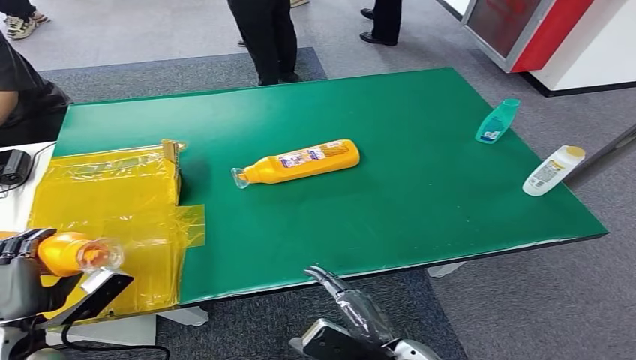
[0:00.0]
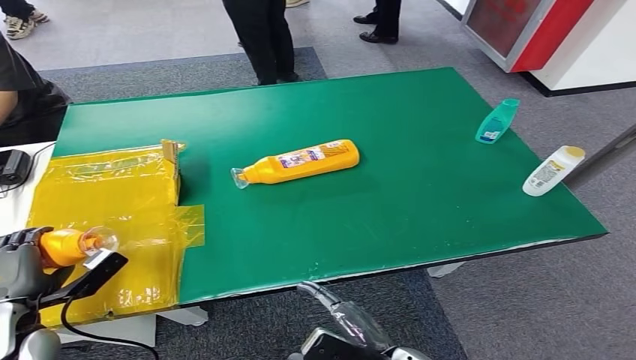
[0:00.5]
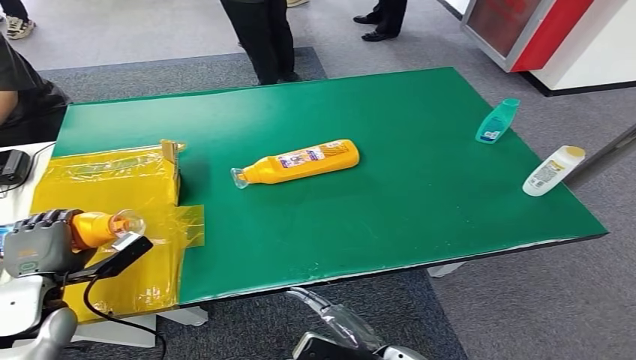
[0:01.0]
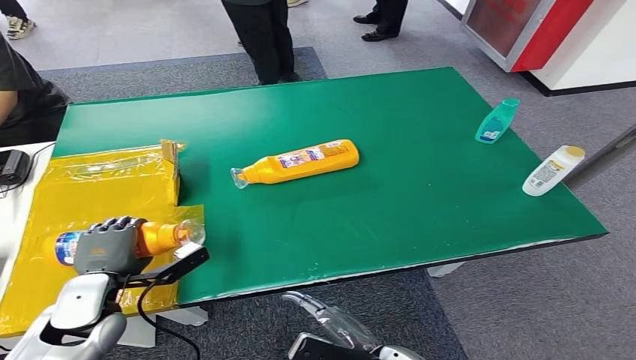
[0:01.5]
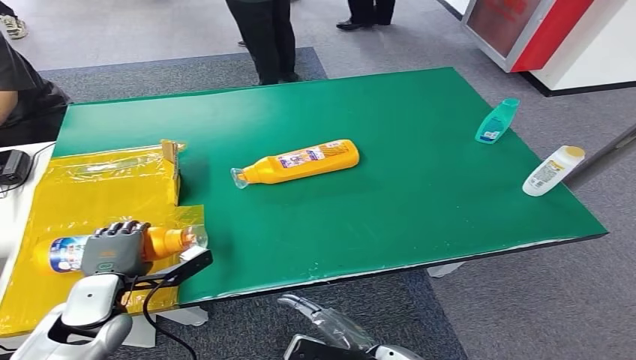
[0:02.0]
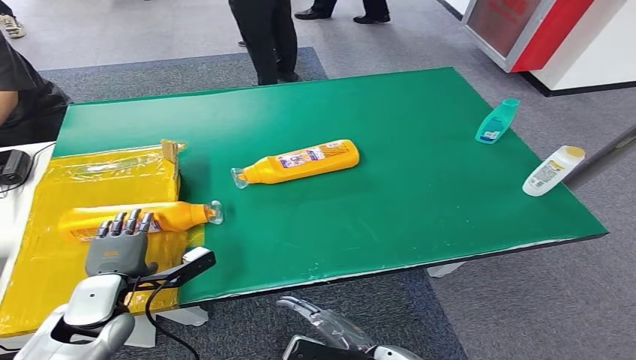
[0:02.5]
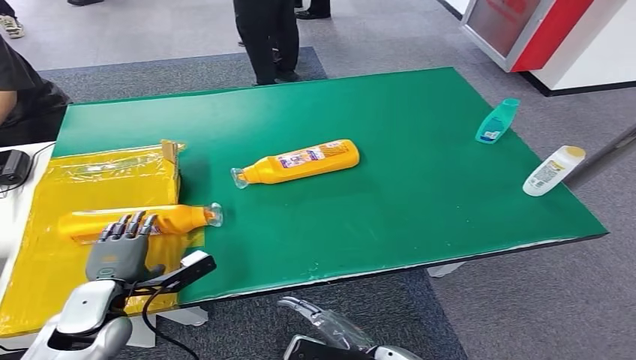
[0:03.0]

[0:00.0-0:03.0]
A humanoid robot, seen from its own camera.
Step, 0:00.0 to 0:03.0: Turn the bottle to the front side.
0:00.0 to 0:01.5: The left hand shifts roughly 10 cm forward and to the right.
0:01.5 to 0:03.0: There are only small adjustments of the hands.
